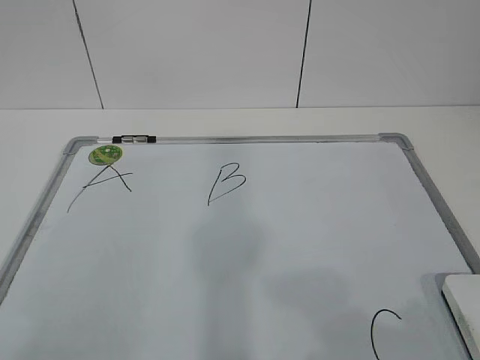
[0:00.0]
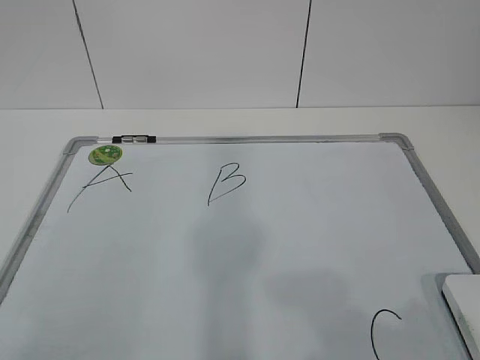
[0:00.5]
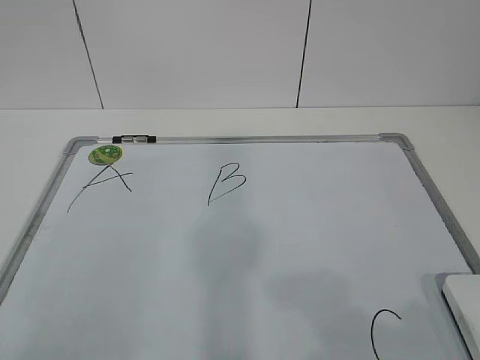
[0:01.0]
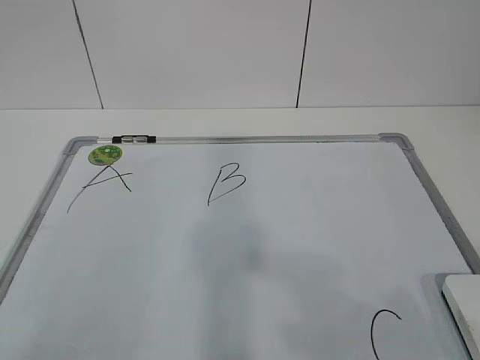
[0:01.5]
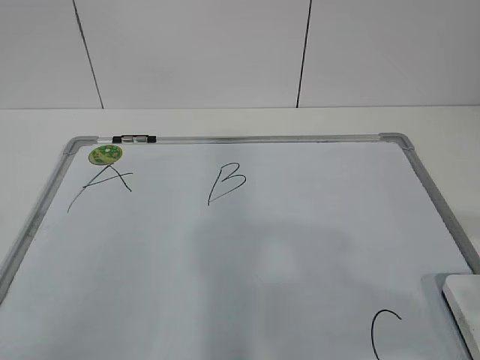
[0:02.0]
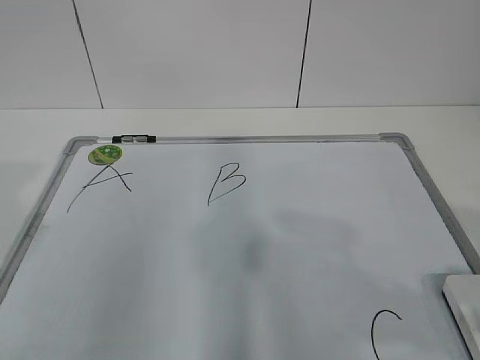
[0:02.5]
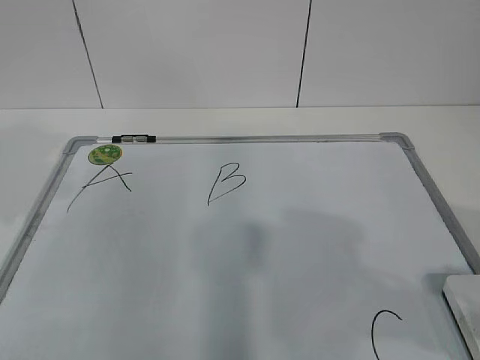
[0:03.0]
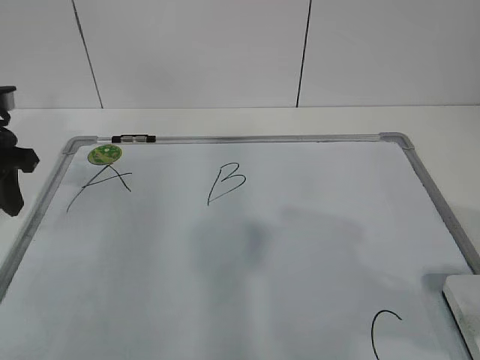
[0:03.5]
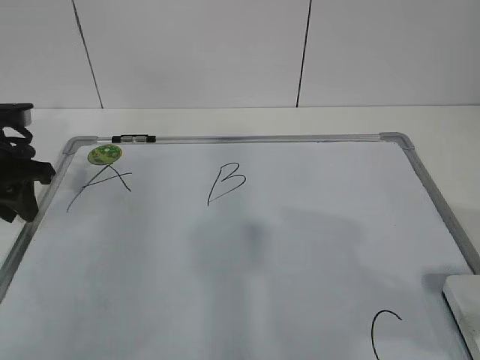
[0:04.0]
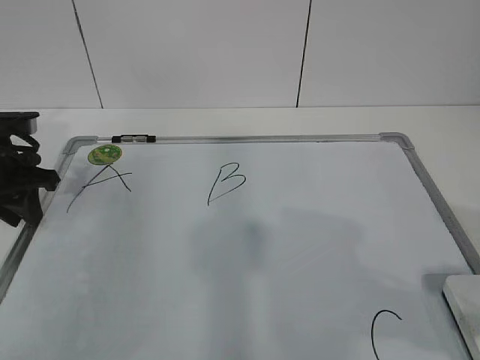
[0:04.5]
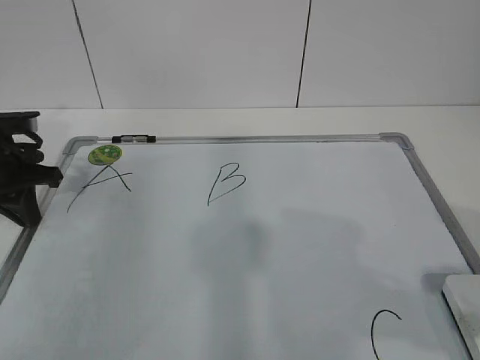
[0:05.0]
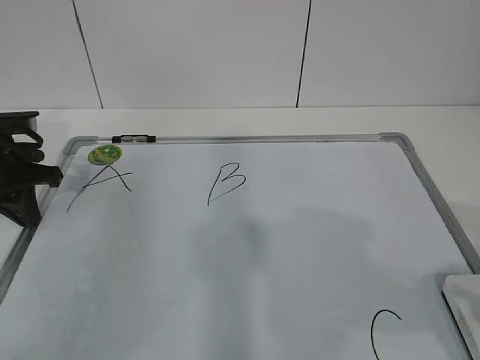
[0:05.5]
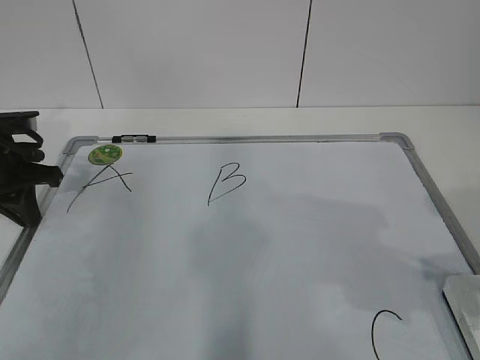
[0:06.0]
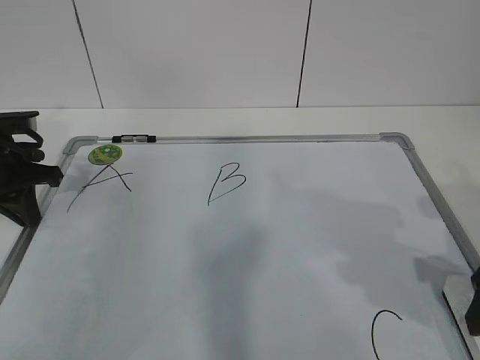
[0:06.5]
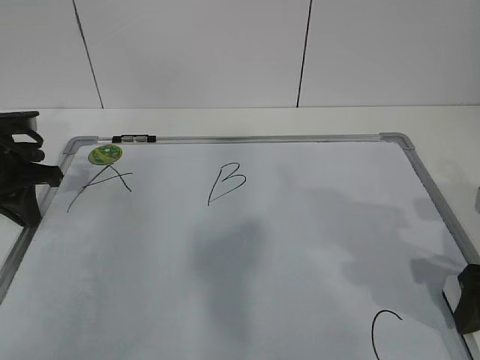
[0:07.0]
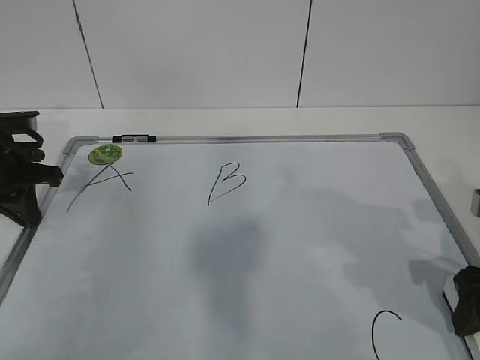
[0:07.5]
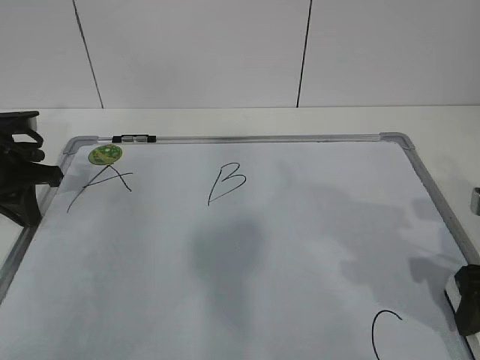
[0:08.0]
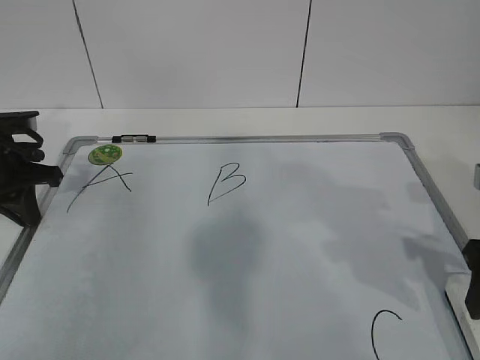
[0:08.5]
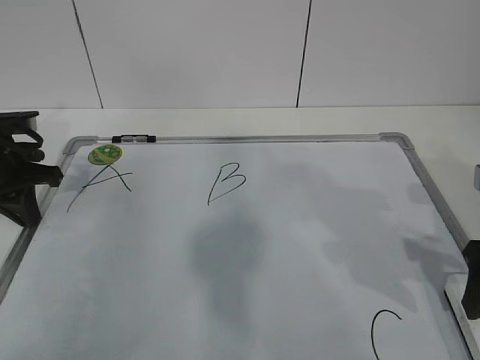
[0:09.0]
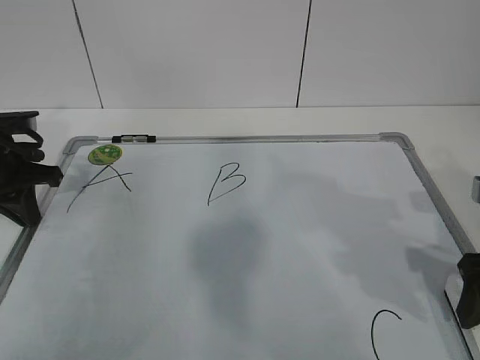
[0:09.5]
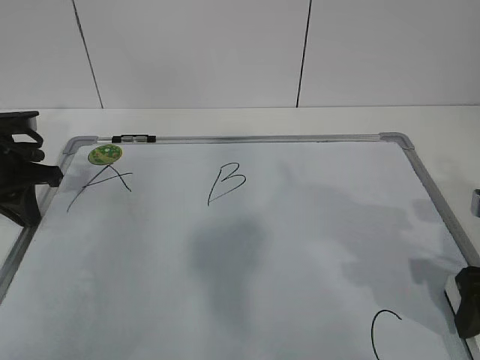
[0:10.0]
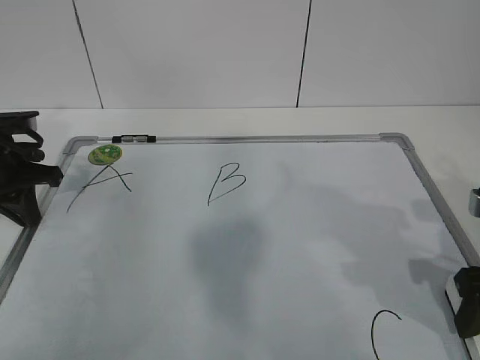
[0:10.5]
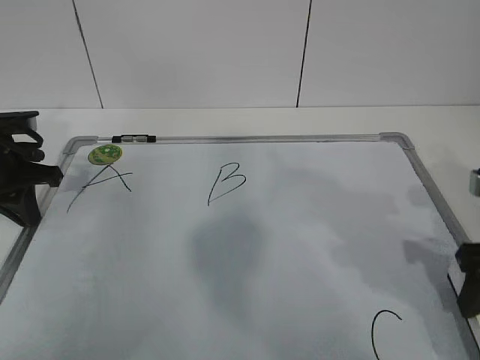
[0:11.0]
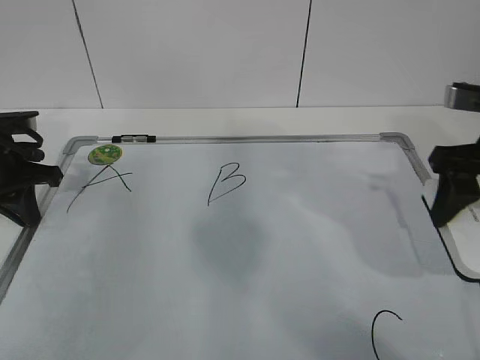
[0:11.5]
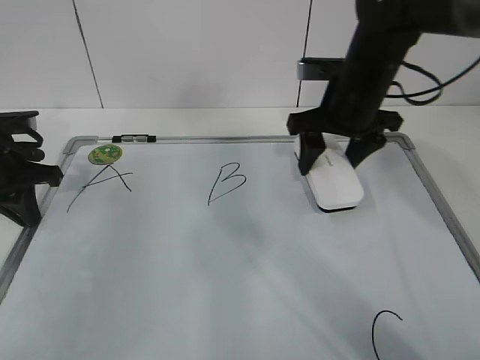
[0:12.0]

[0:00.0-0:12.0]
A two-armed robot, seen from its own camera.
Task of the whole recording: pick up the eraser on the blackboard and erase the letter "B".
Step, 0.0 to 4.0 s: Hold the drawing board steady with your left hand.
Step, 4.5 to 8.5 s: Grab the eraser with your right hand.
2.0 to 4.0 s: The left gripper shifts approximately 35 cm forward.
4.0 to 6.0 s: The left gripper closes up.
6.0 to 8.0 s: The right gripper shifts about 10 cm downward and forward, and closes.
10.0 to 12.0 s: The right gripper is displaced forward and to the left by some 20 cm, and closes up.

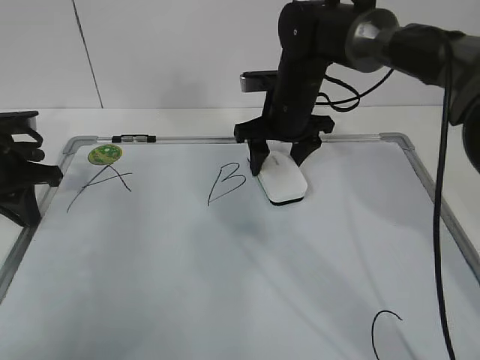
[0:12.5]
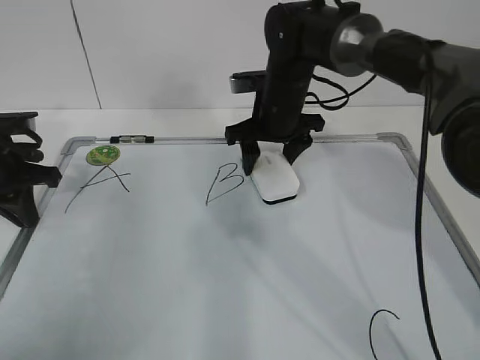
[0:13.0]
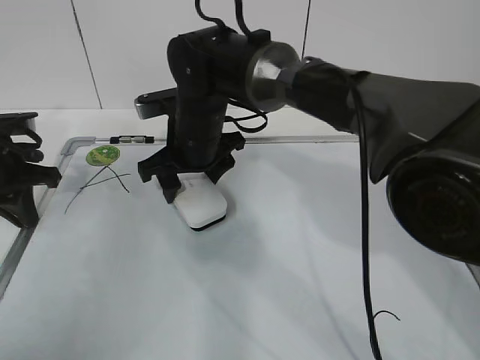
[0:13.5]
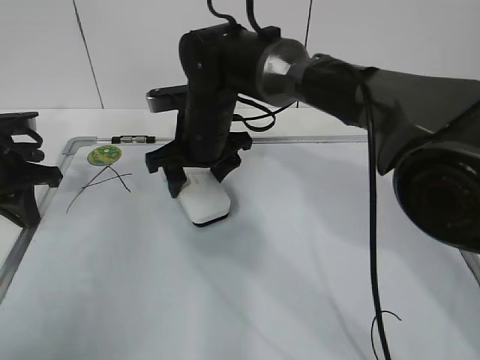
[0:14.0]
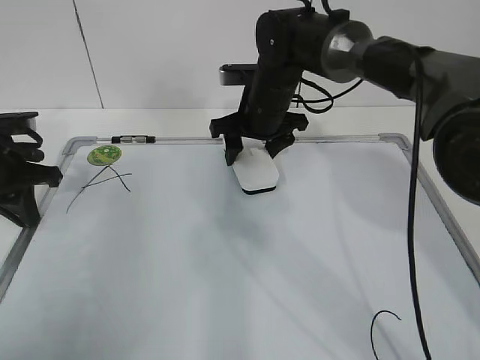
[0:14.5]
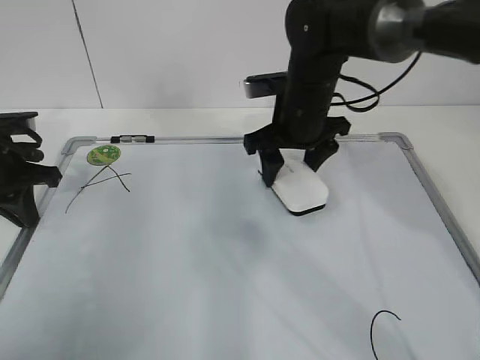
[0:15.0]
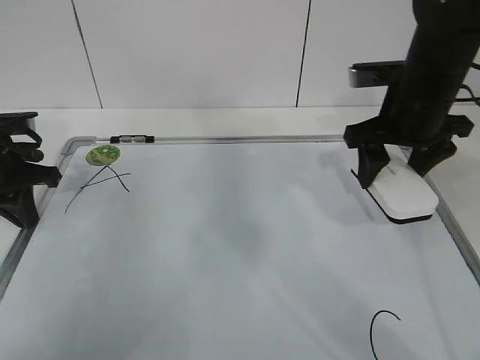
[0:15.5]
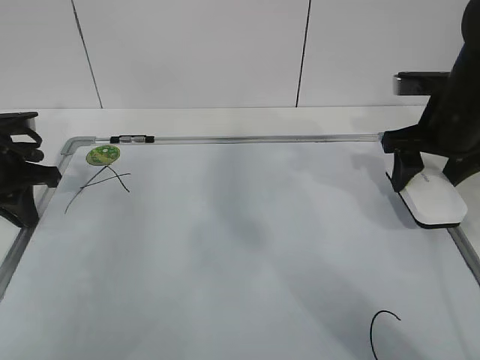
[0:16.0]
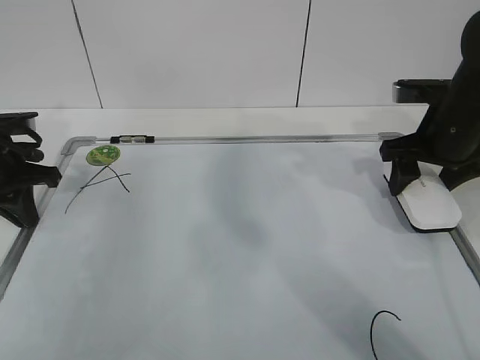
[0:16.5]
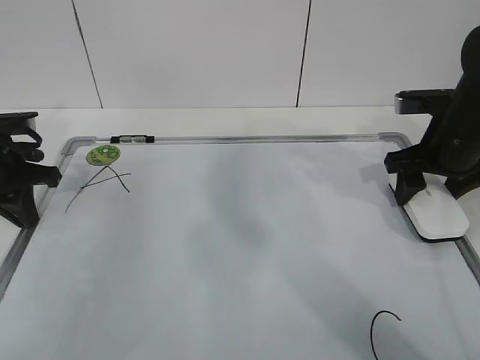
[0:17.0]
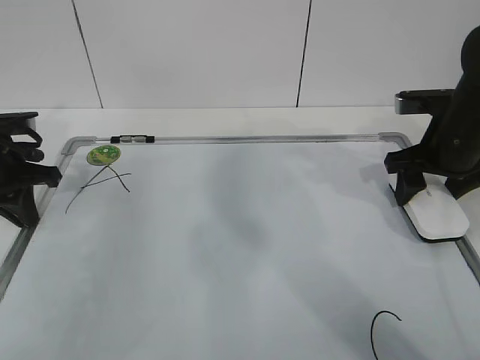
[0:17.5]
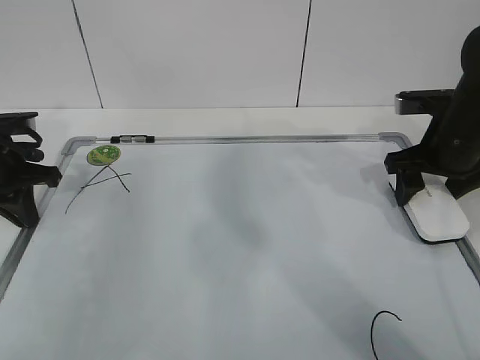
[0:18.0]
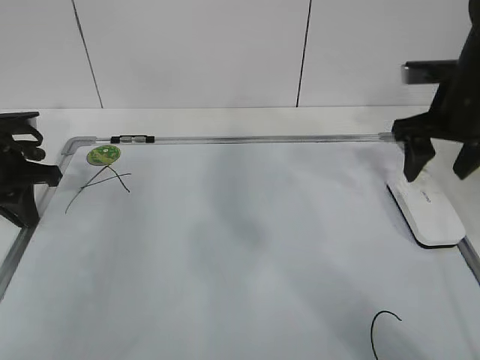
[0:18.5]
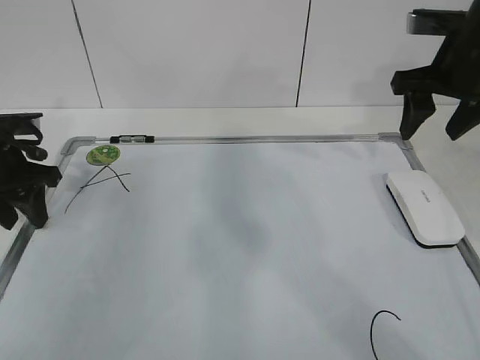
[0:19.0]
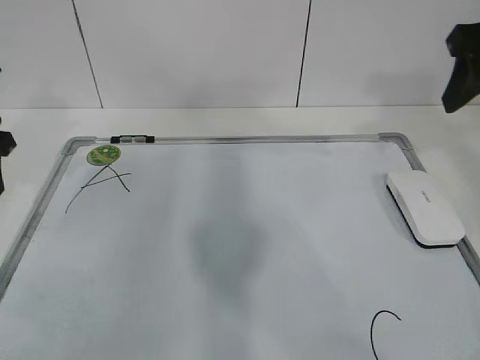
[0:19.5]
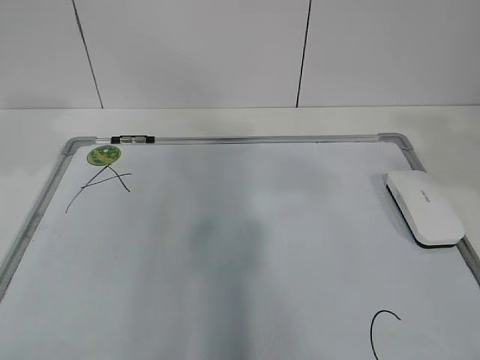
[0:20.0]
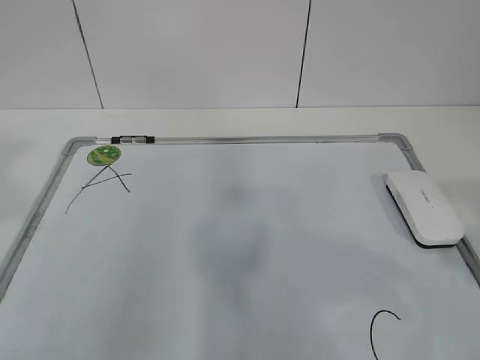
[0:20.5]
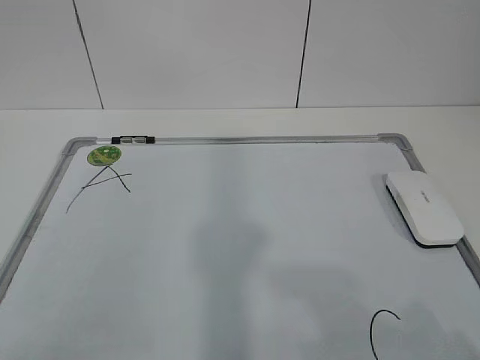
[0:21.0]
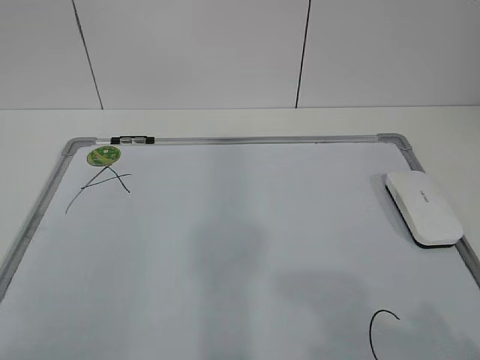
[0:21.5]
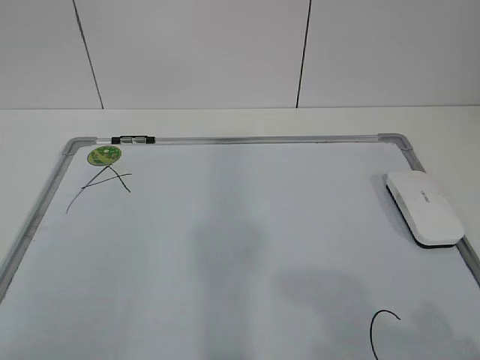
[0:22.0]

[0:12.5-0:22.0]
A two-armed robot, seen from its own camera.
Task of the whole recording: pick up the eraser on the blackboard and erase the letter "B".
Step, 12.5 to 14.5 s: Put down the eraser with your right hand.
12.5 to 14.5 s: The right gripper travels to the left and back again, about 15 cm each way.
14.5 to 16.5 s: The right gripper shifts about 20 cm to the right and backward.
16.5 to 18.0 s: Both grippers stay put.
18.0 to 20.0 s: The two grippers go approximately 25 cm upward and backward. The left gripper opens.
20.0 to 22.0 s: The right gripper moves backward and downward, some 20 cm. The left gripper travels backward by about 25 cm.

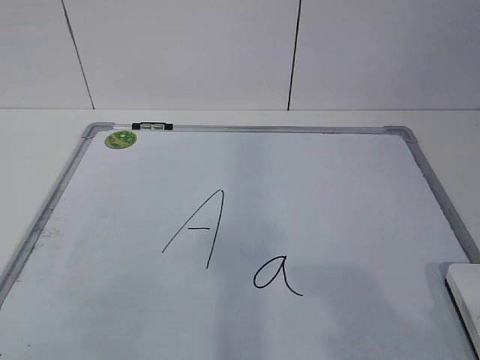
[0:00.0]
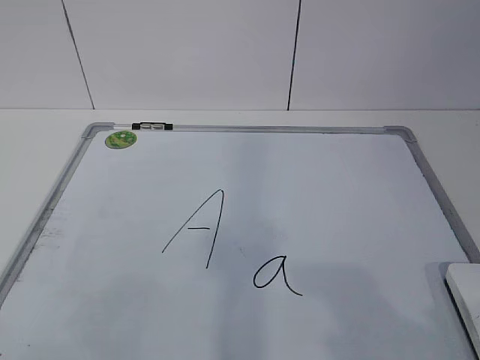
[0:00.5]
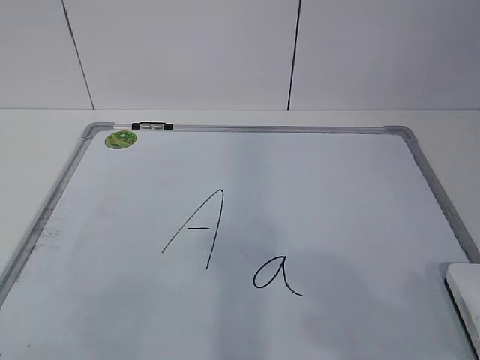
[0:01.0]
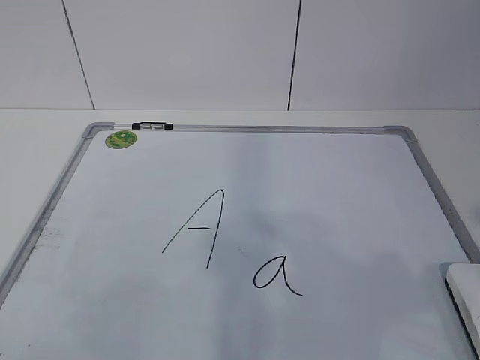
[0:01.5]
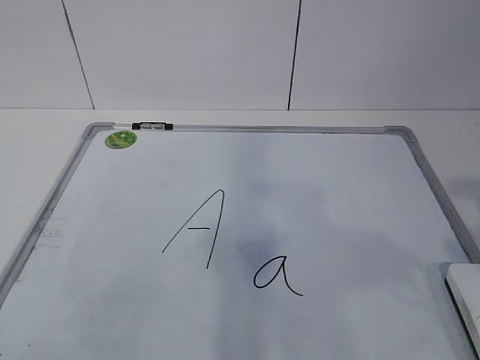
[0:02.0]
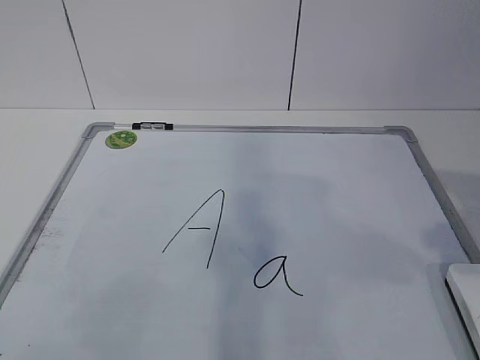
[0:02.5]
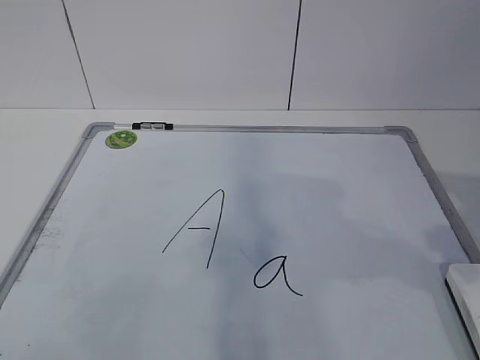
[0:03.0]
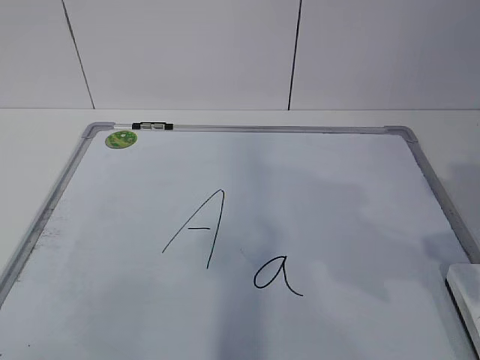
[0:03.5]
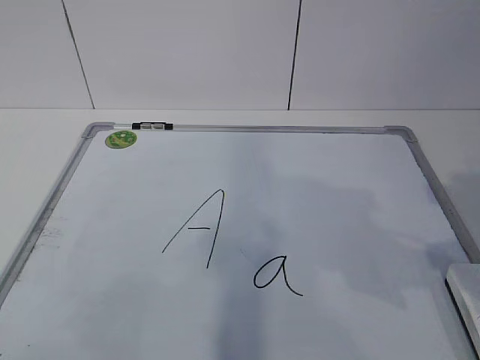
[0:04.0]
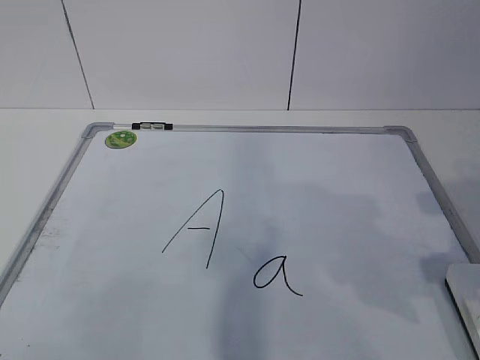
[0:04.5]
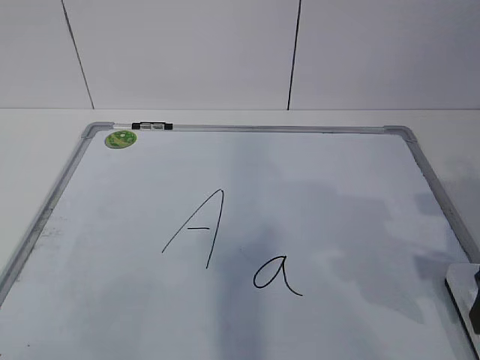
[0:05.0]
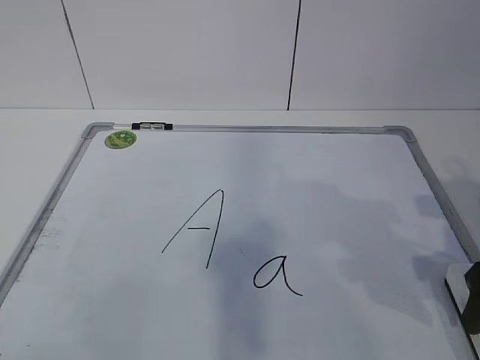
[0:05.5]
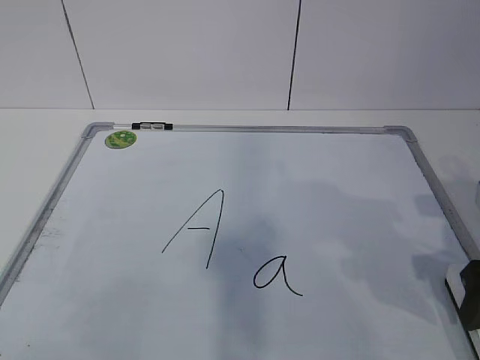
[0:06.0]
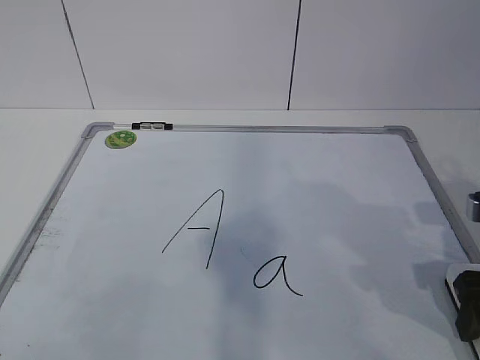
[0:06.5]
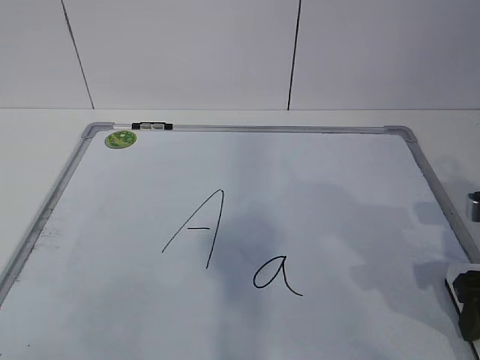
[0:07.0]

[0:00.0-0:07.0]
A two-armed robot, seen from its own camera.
Task of the whole recording: pick up the eraser on the blackboard and erase the letter "a".
3.5 to 5.0 s: The right gripper goes roughly 5 cm downward.
5.0 to 7.0 s: The right gripper closes.
